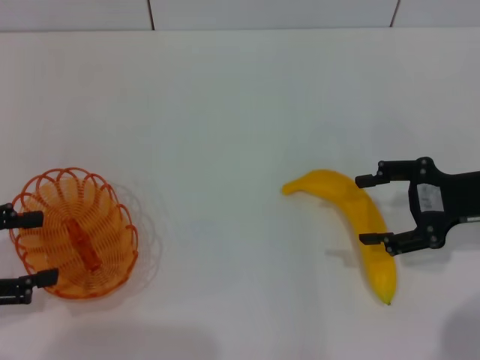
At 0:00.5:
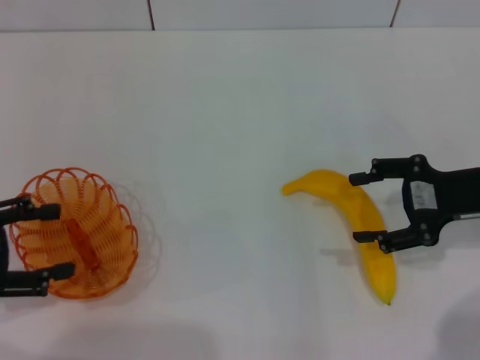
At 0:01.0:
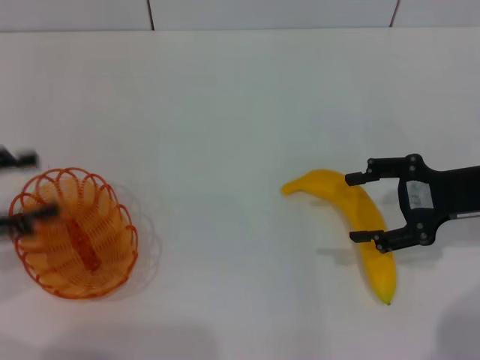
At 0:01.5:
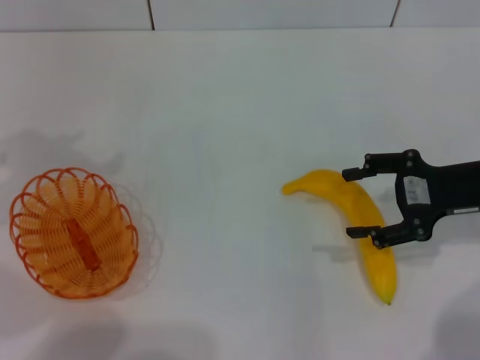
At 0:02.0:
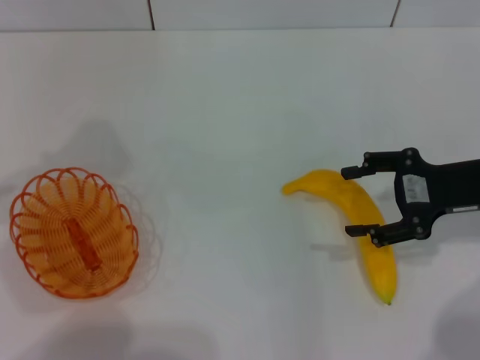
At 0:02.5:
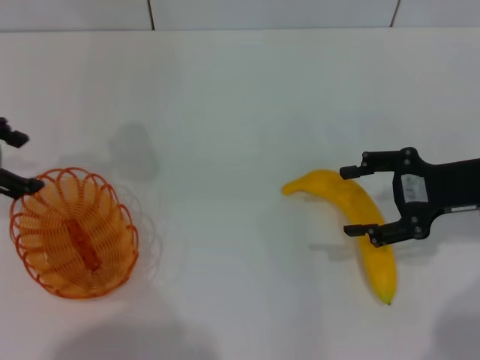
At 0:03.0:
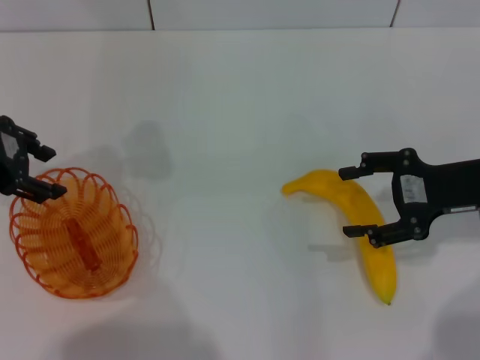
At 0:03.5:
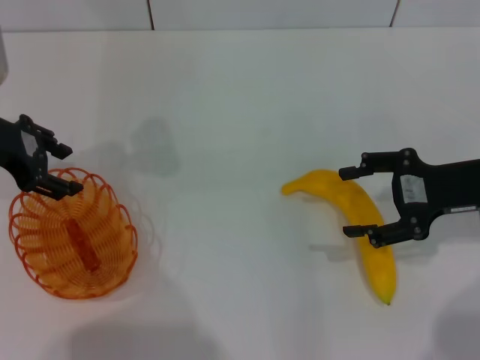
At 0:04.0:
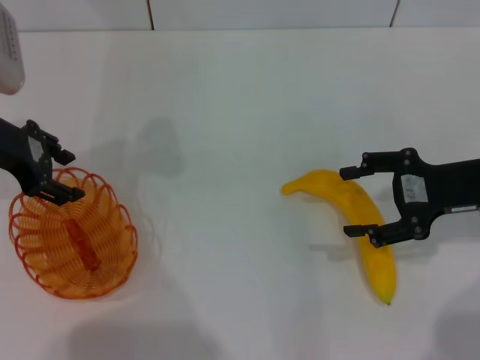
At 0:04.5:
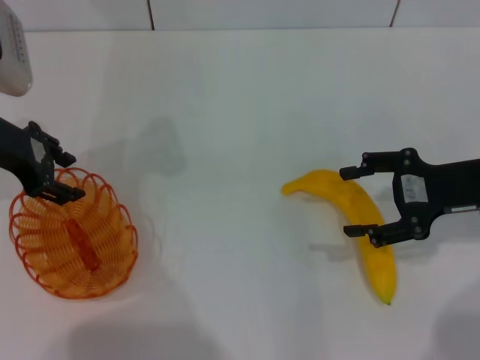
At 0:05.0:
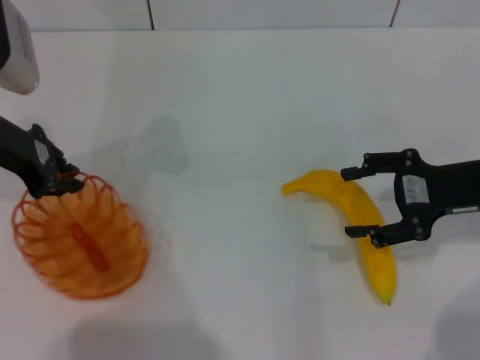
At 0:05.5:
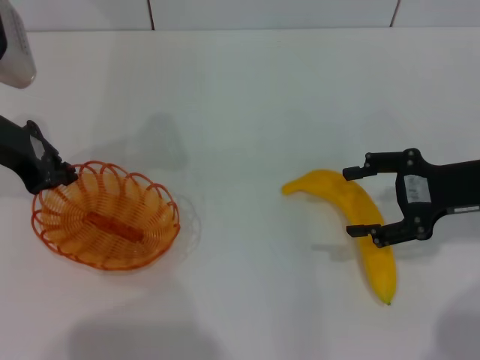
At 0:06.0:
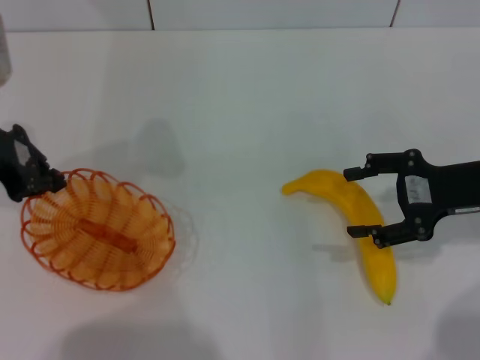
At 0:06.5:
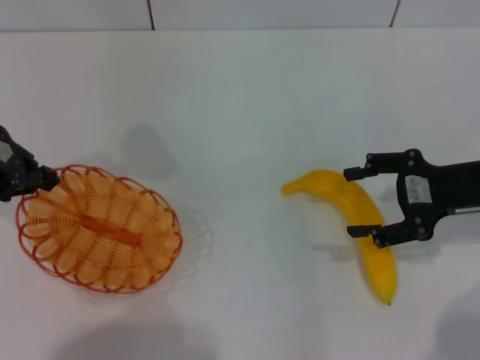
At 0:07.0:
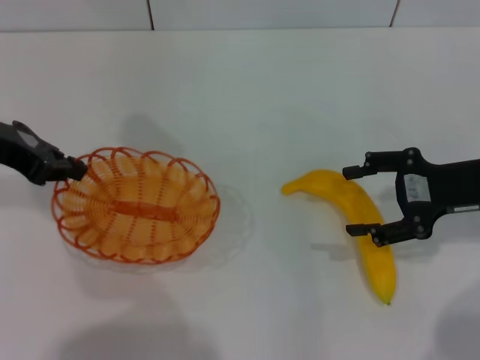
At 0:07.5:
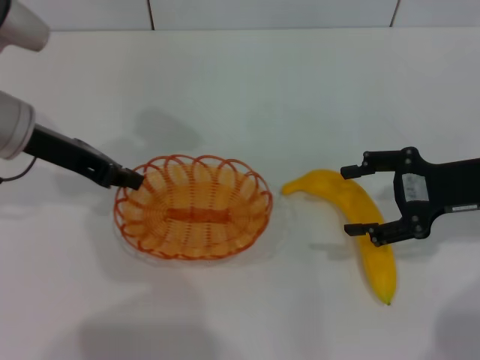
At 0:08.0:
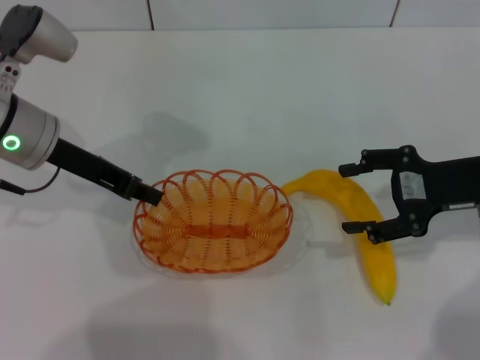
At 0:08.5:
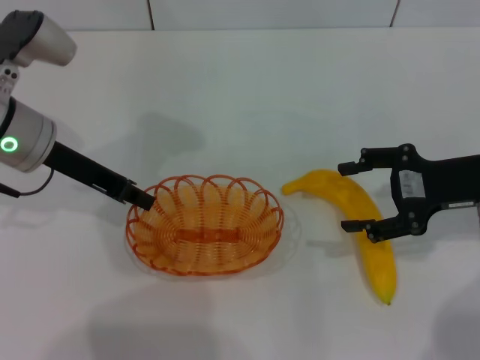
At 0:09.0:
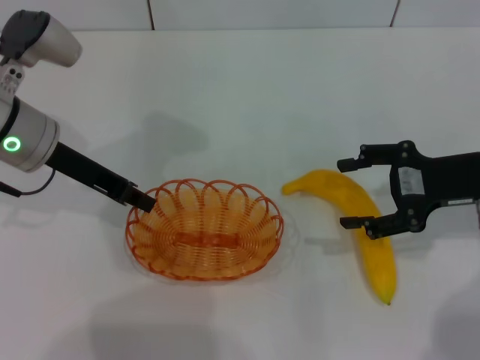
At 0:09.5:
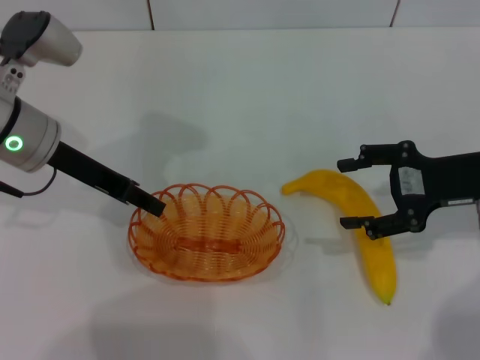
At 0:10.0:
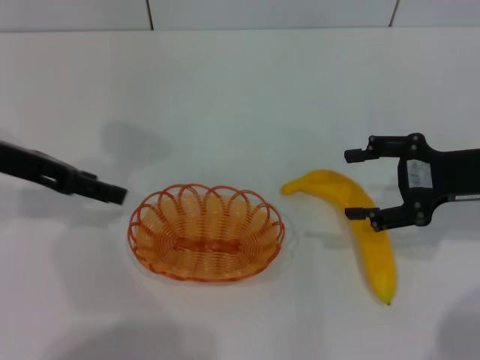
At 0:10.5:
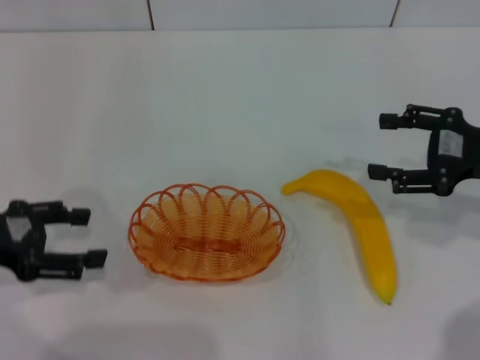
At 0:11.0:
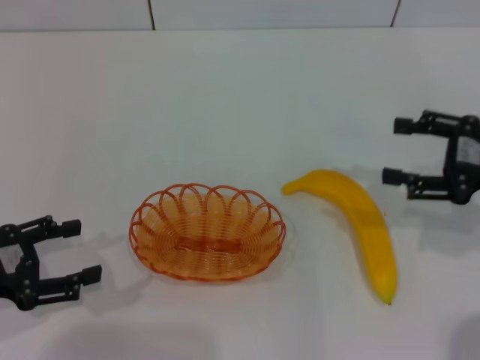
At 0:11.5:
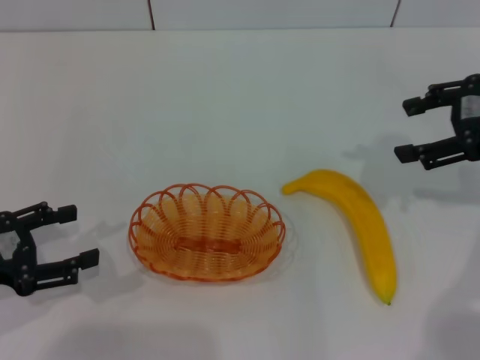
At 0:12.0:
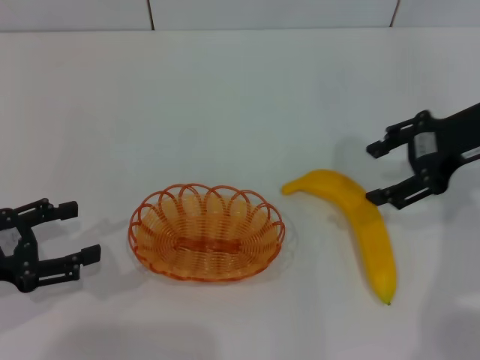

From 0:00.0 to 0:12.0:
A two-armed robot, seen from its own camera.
Step, from 0:00.0 to 0:06.5: Pick up the basket with the left gripper.
Step, from 0:07.0 to 0:09.5: Place the basket in the center of view with the left gripper.
From 0:00.0 to 0:02.0: The left gripper goes approximately 20 cm upward and forward.
From 0:02.0 to 0:04.0: The left gripper shifts about 15 cm to the right and downward.
From 0:04.0 to 0:06.0: The left gripper closes its fingers.
From 0:06.0 to 0:08.0: The left gripper heads to the right, covering about 5 cm.
From 0:08.0 to 0:10.0: The left gripper is displaced to the left by roughly 5 cm, and opens its fingers.
From 0:10.0 to 0:12.0: The left gripper moves backward, downward and to the left, about 15 cm. The right gripper moves upward, roughly 5 cm.

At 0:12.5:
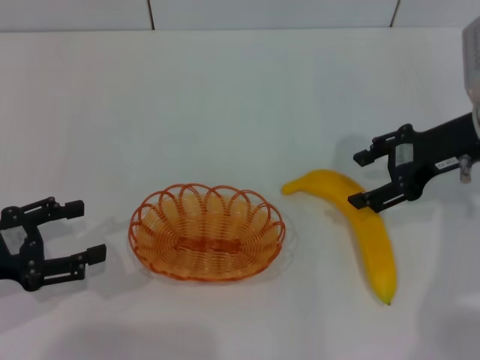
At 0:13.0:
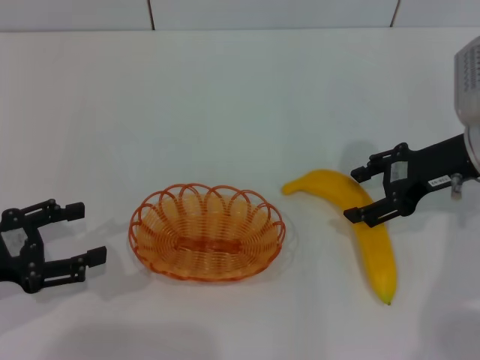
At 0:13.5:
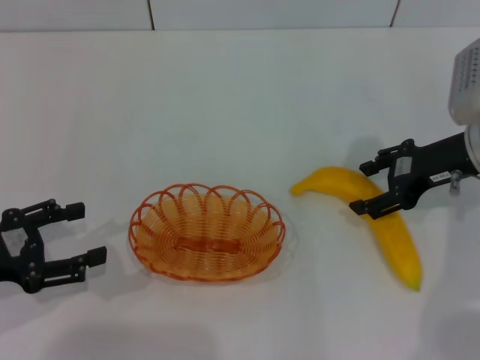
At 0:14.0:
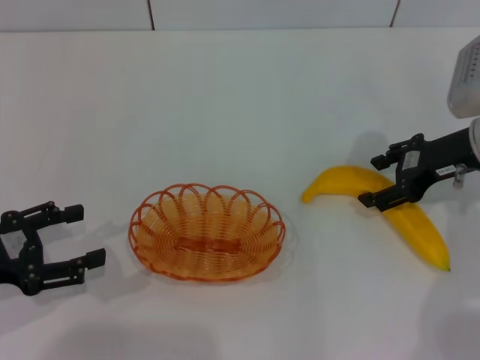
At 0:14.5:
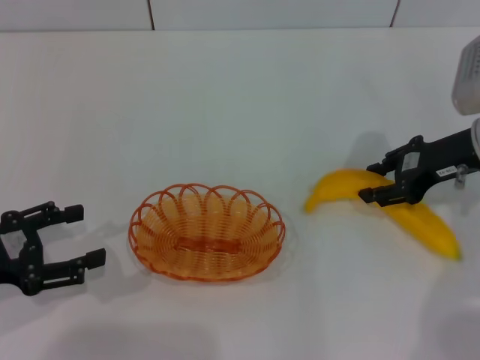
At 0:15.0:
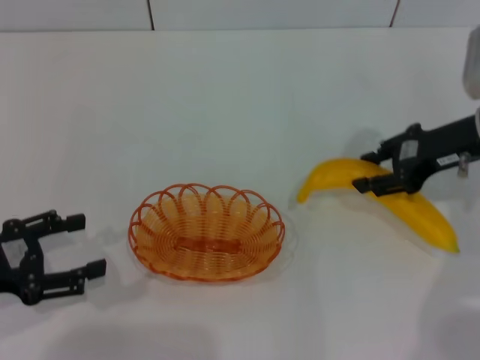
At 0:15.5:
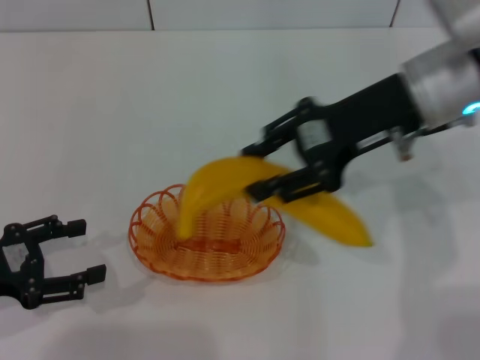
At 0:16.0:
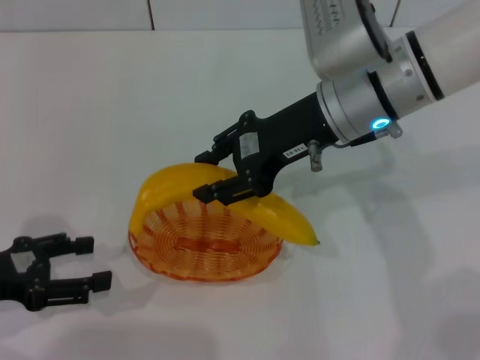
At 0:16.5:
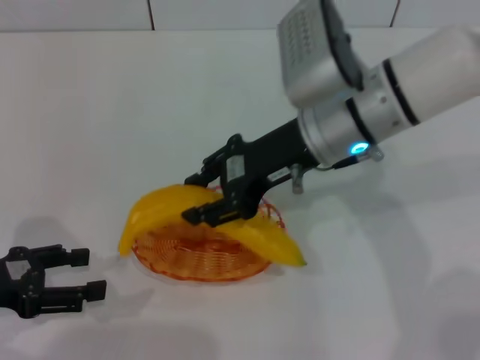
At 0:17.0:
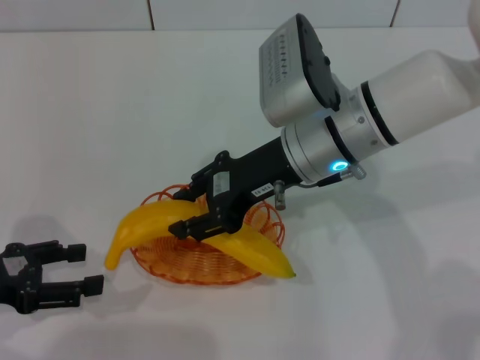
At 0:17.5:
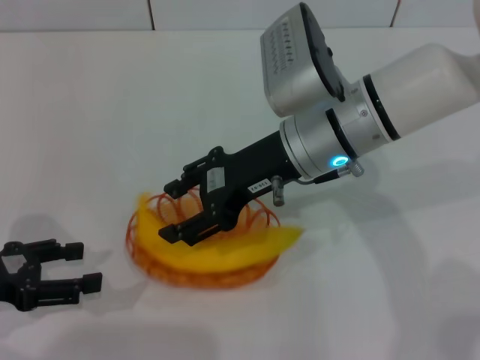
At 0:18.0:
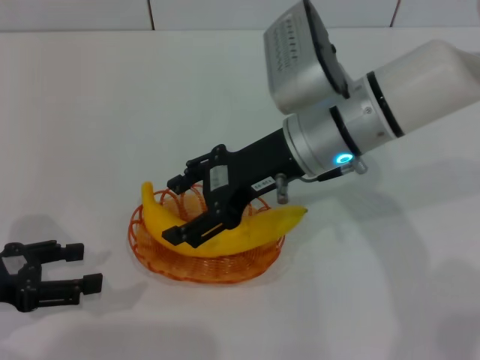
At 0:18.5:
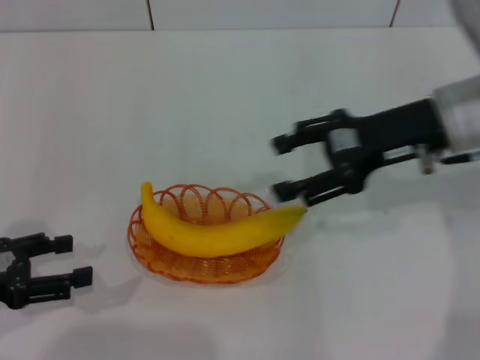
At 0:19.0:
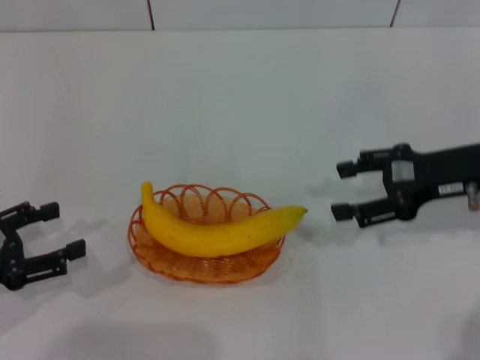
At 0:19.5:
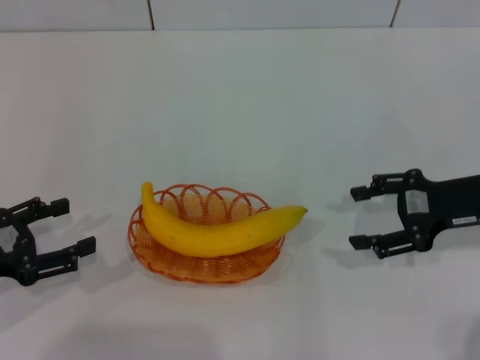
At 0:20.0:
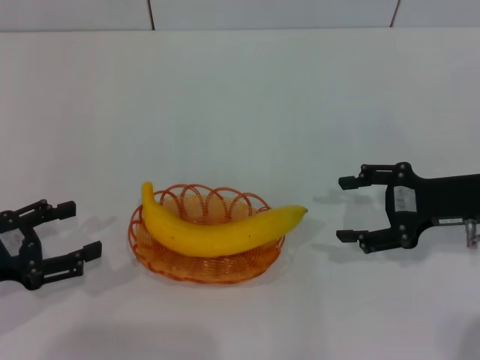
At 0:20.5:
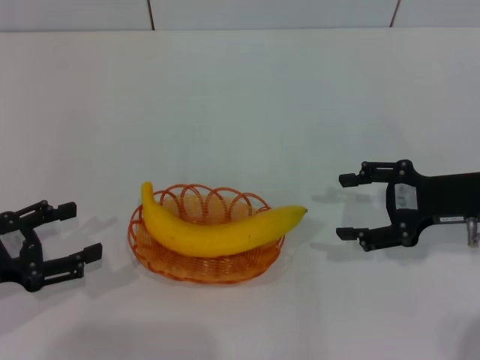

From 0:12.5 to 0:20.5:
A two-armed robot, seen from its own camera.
Step, from 0:12.5 to 0:15.0: Pick up the banana with the right gripper.
Step, from 0:15.5 to 0:18.0: Place the banana into the basket with the right gripper.
From 0:12.5 to 0:14.5: The right gripper closes.
From 0:14.5 to 0:16.5: The right gripper moves to the left, about 15 cm, and closes up.
From 0:16.5 to 0:18.5: The right gripper goes some 10 cm to the right, and opens up.
From 0:18.5 to 0:20.5: The right gripper is displaced downward and to the right by about 10 cm.

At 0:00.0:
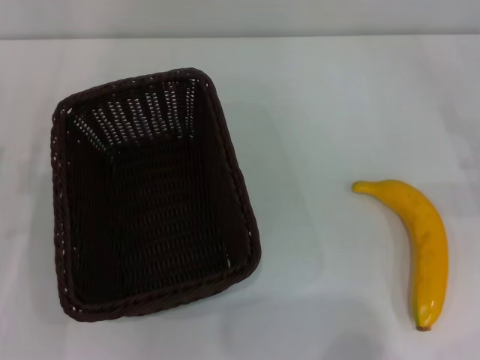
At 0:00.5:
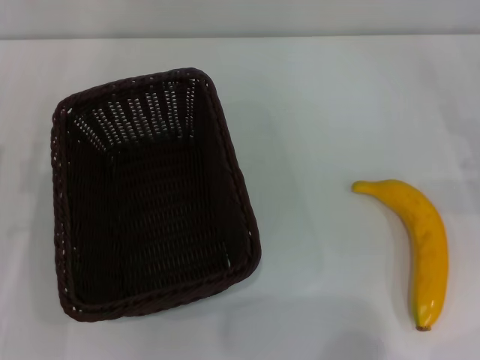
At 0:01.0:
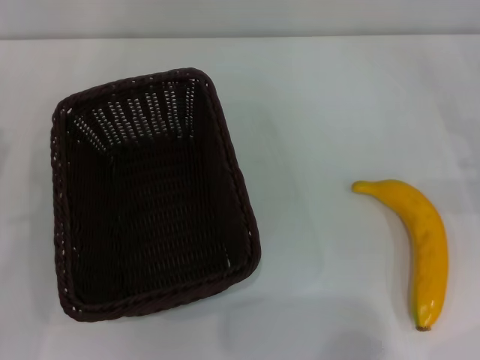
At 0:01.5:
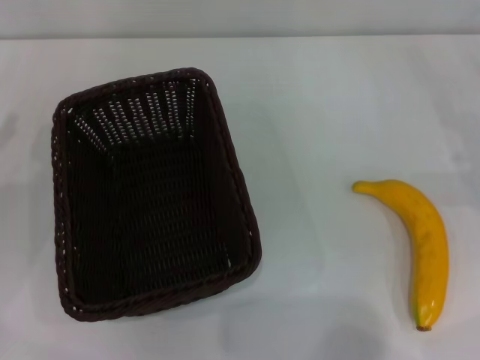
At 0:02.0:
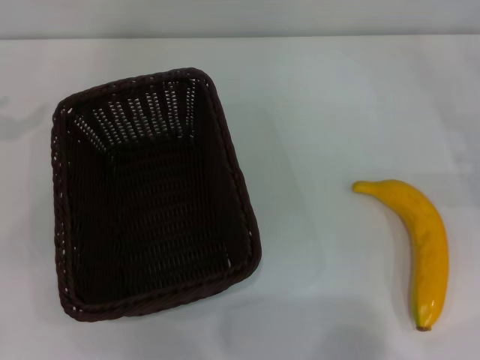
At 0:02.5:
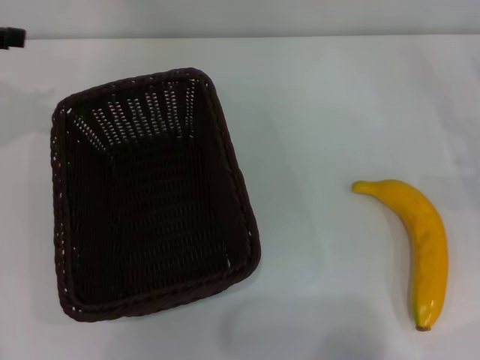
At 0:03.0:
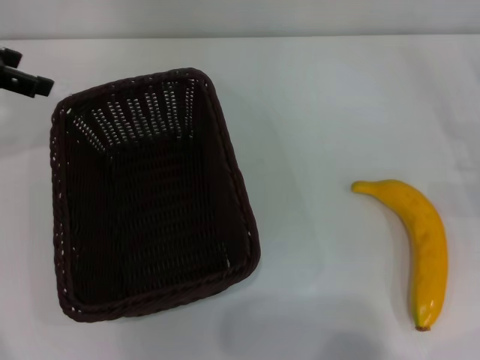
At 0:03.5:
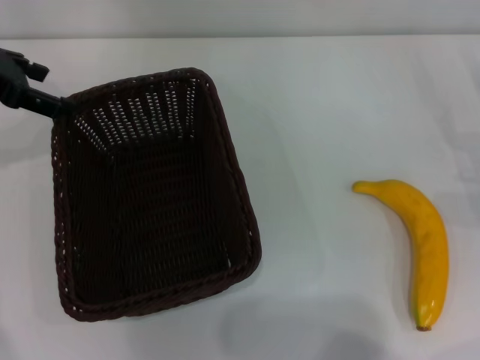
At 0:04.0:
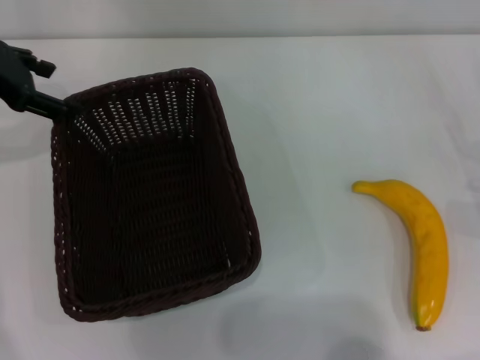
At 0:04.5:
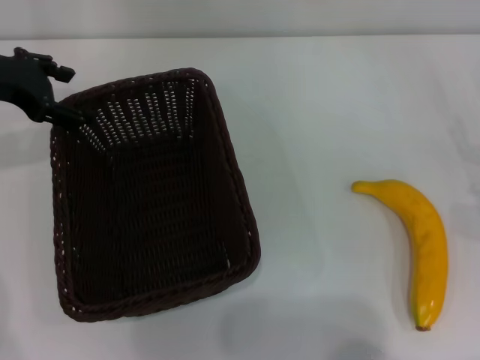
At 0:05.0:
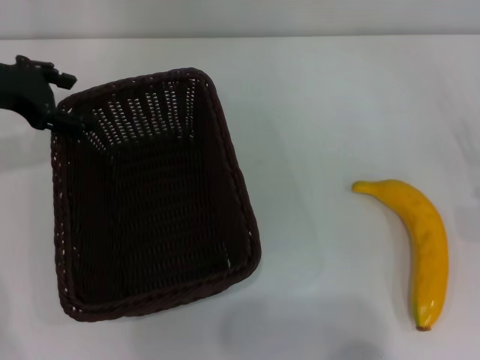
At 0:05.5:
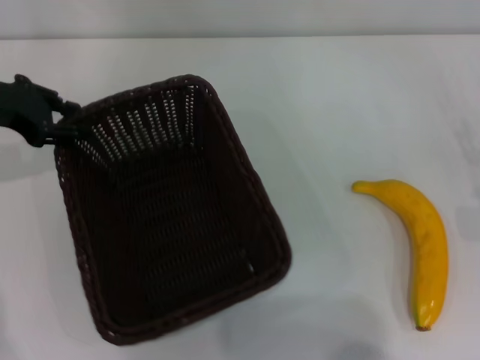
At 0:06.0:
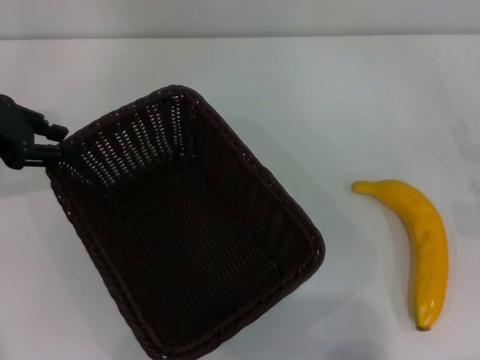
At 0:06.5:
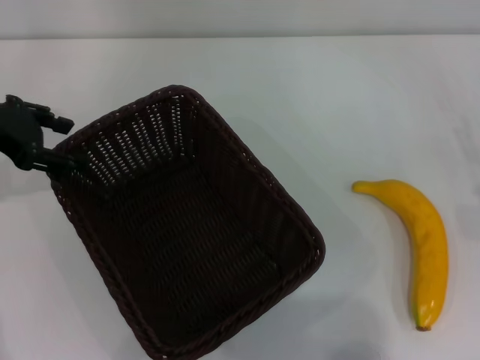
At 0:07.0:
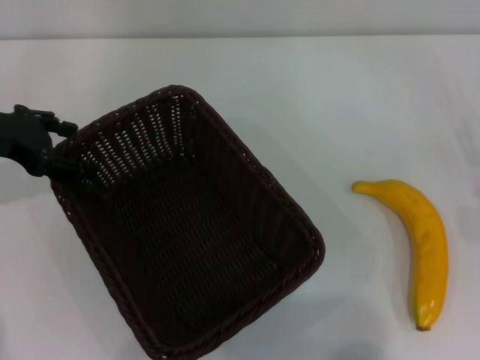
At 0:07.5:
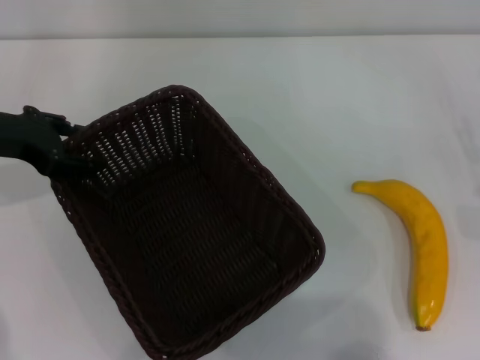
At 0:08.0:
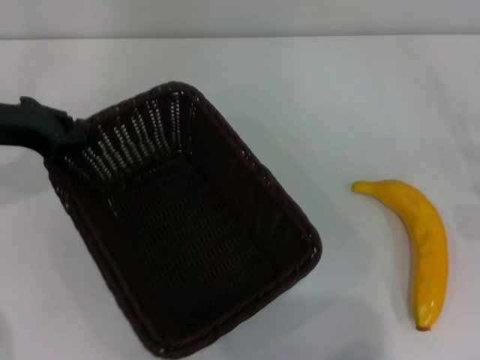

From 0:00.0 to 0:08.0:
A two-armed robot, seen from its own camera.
From 0:02.0 to 0:04.0: The left gripper travels to the right and forward by some 10 cm.
From 0:04.0 to 0:06.0: The left gripper closes up.
From 0:06.0 to 0:08.0: The left gripper opens, then closes once more.
